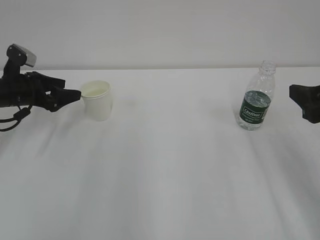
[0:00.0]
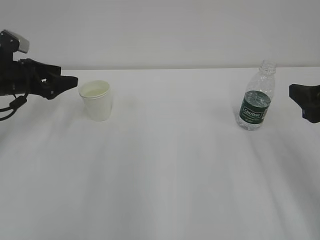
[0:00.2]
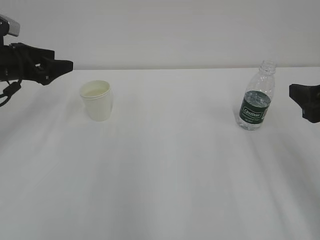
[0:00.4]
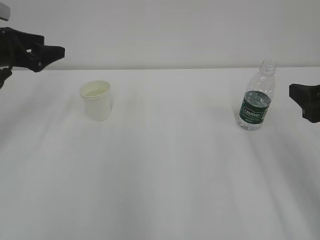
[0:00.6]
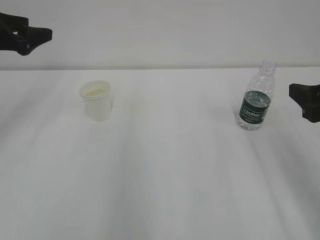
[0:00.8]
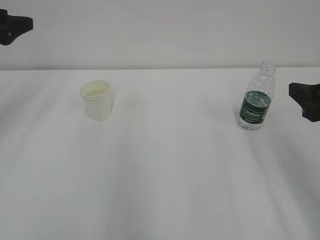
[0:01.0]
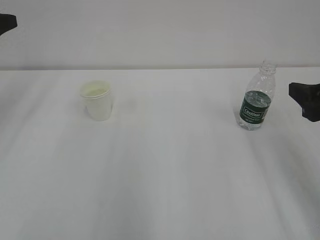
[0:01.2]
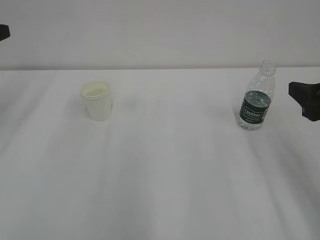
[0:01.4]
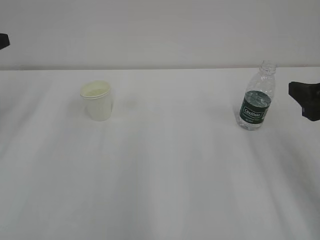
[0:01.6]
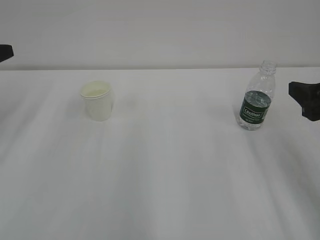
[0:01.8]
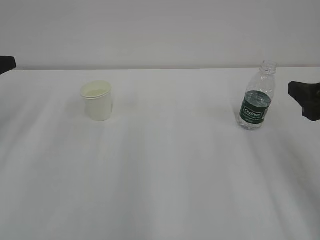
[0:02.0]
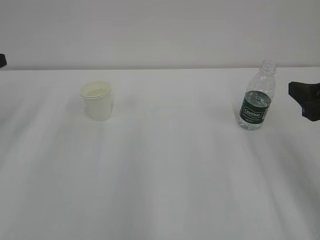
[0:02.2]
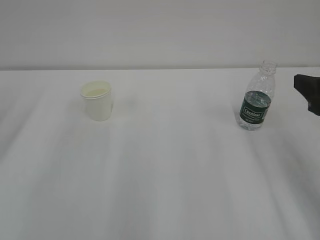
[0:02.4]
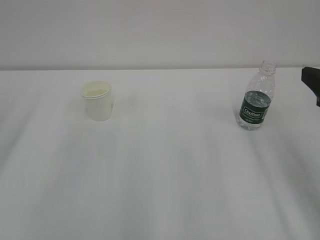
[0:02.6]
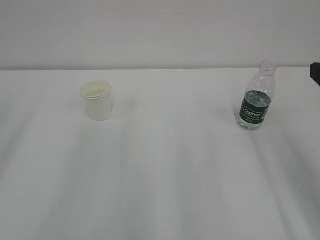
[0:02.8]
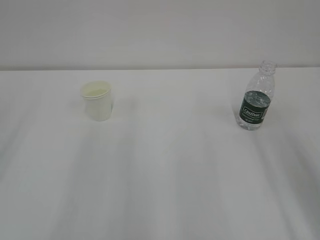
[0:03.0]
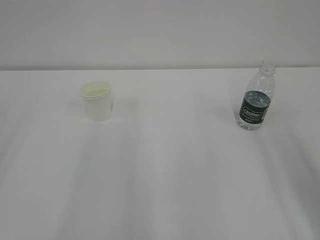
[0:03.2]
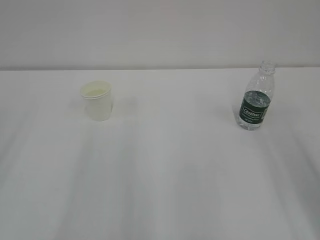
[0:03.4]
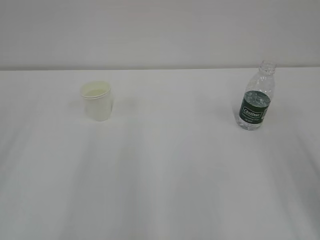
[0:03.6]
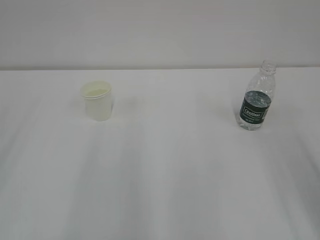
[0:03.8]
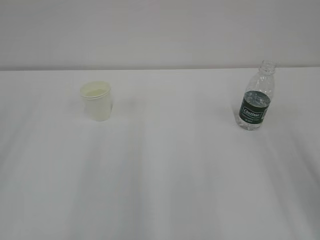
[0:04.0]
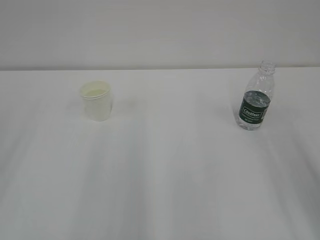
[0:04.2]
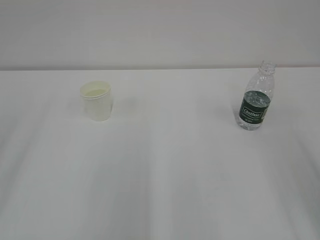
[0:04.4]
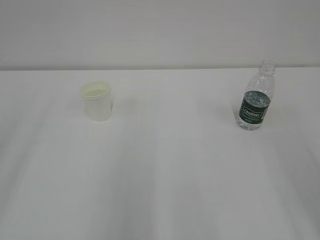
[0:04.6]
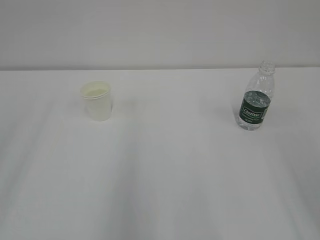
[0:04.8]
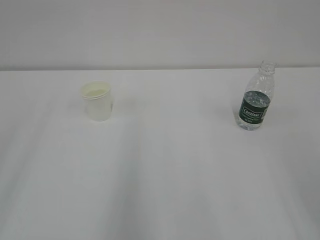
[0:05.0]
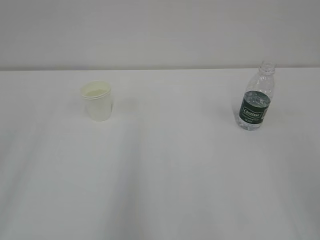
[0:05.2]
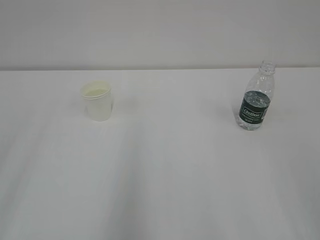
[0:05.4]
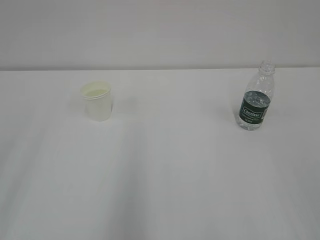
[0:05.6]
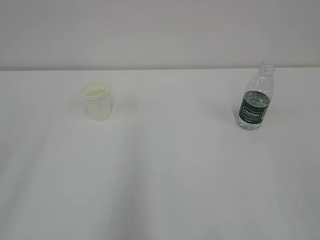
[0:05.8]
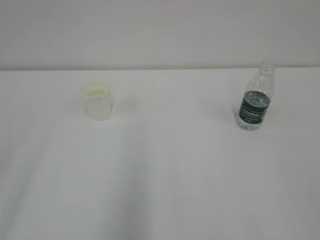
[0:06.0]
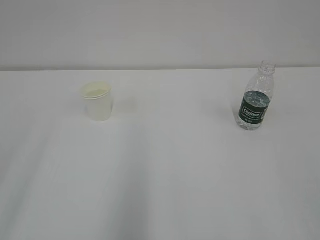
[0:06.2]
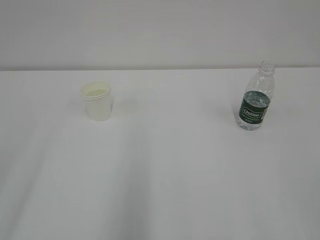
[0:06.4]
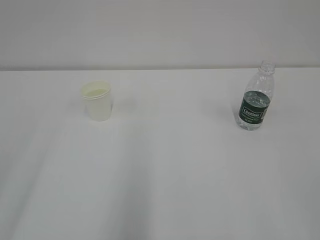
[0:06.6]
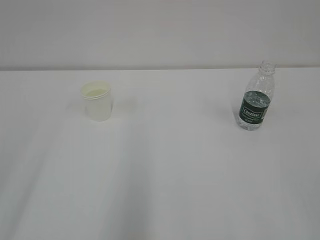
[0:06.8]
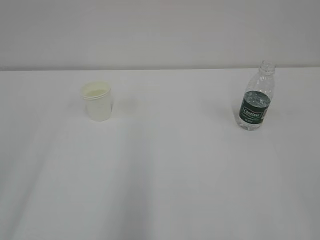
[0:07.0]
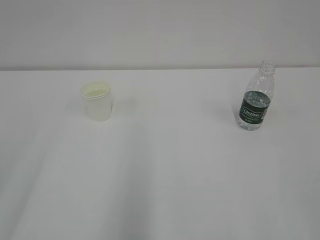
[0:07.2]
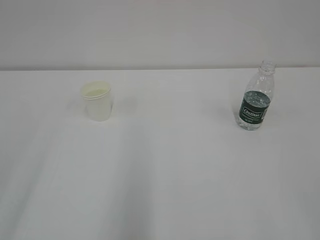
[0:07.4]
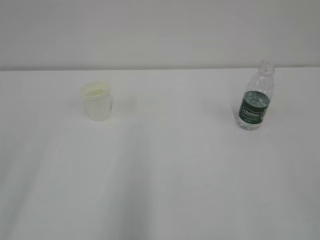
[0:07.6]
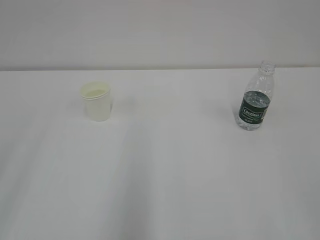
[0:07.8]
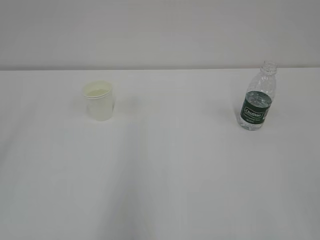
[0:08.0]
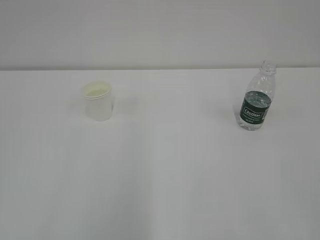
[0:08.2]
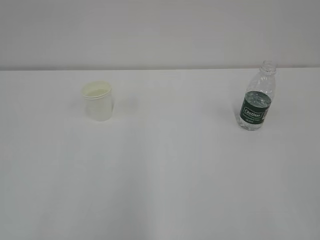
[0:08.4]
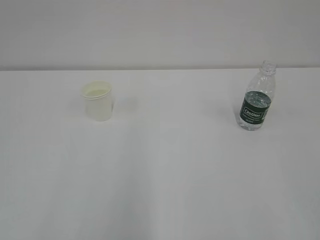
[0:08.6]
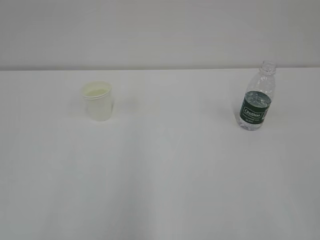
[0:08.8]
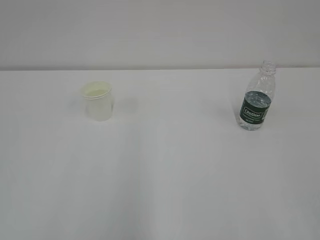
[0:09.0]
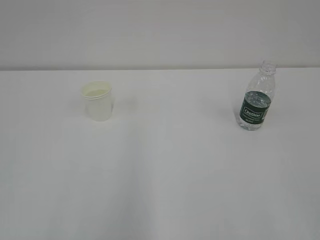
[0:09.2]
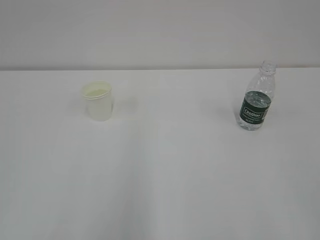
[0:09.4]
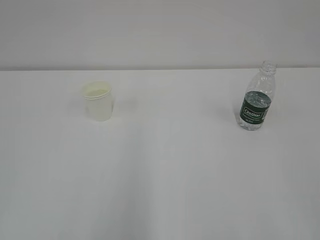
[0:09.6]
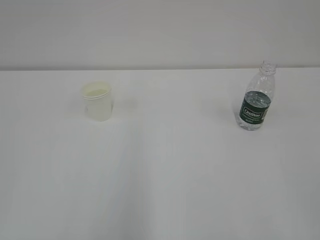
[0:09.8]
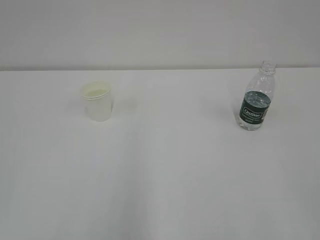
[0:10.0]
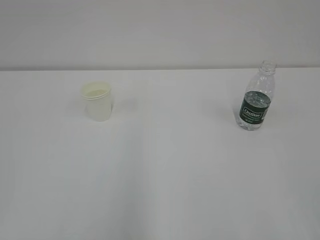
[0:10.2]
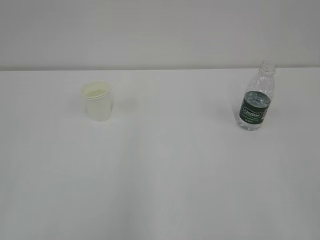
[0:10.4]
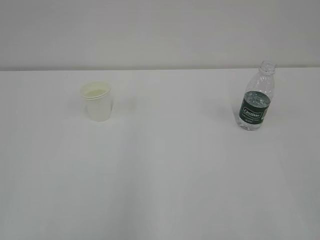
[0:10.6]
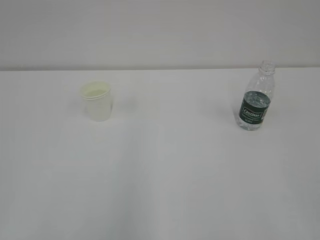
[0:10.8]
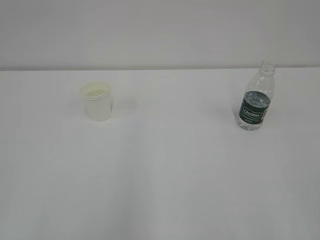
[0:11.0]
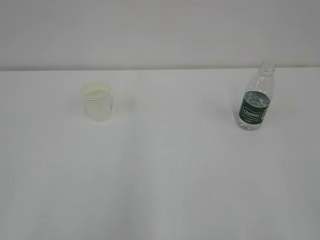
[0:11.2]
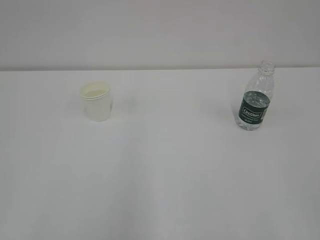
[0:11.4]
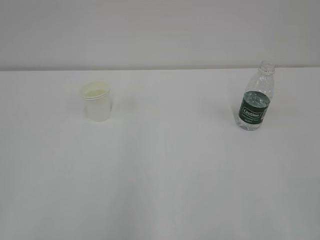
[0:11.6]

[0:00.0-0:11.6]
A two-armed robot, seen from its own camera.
0:00.0 to 0:01.4: The left gripper shifts approximately 15 cm upward and to the left.

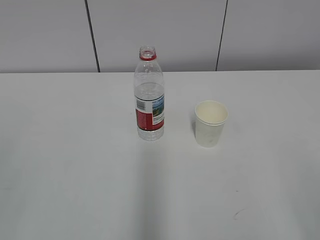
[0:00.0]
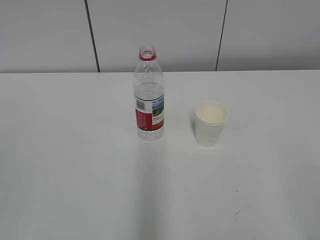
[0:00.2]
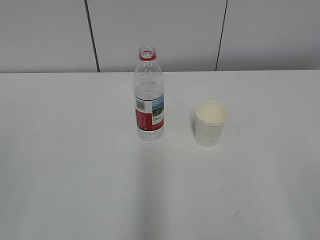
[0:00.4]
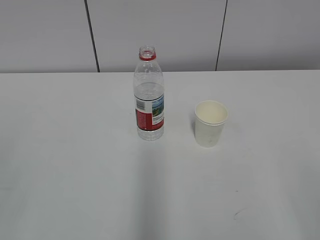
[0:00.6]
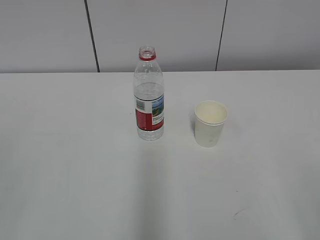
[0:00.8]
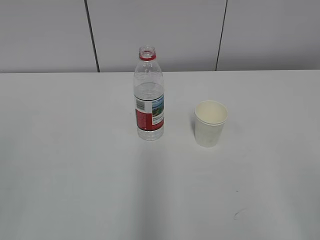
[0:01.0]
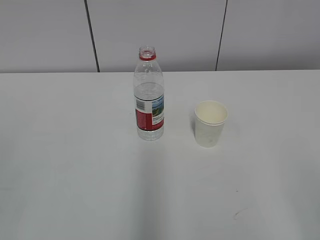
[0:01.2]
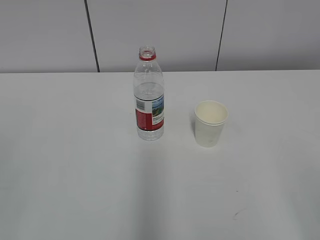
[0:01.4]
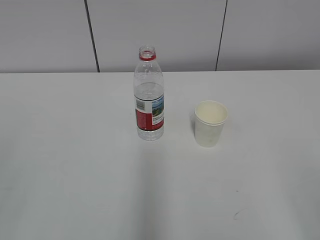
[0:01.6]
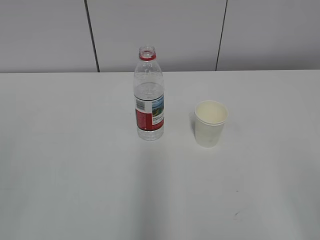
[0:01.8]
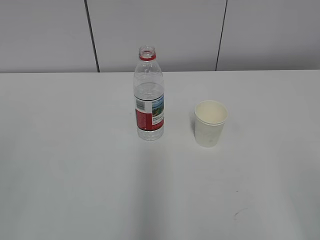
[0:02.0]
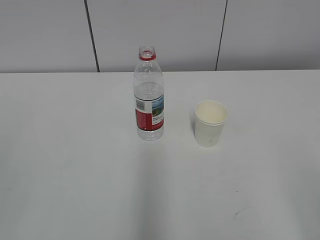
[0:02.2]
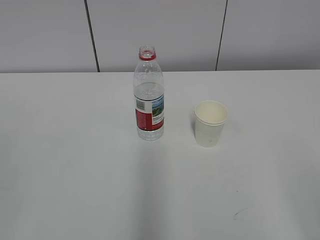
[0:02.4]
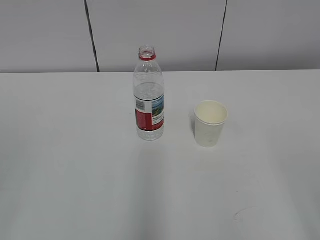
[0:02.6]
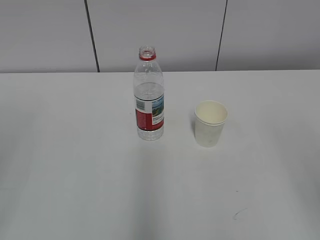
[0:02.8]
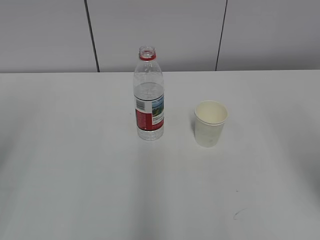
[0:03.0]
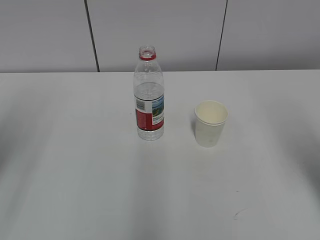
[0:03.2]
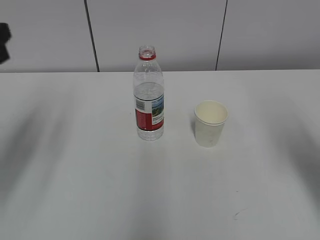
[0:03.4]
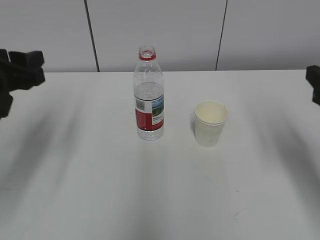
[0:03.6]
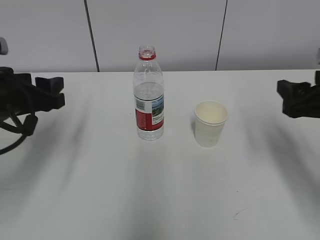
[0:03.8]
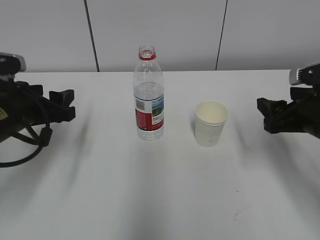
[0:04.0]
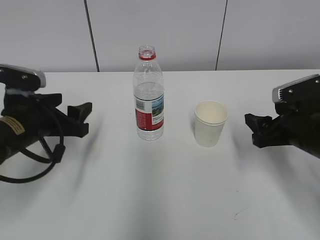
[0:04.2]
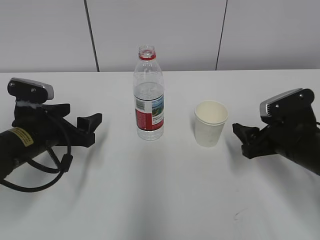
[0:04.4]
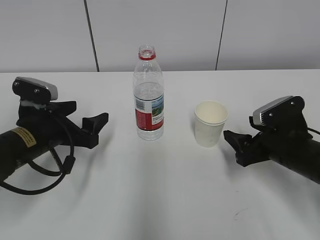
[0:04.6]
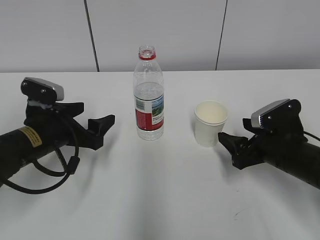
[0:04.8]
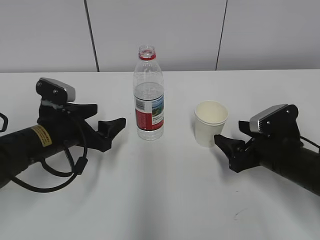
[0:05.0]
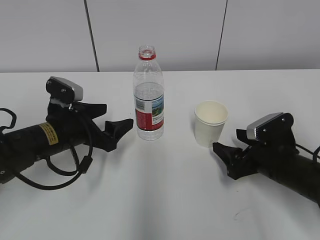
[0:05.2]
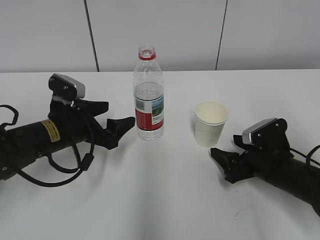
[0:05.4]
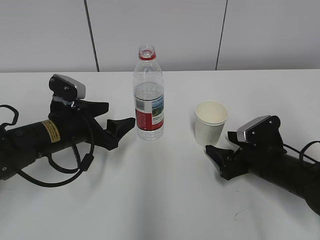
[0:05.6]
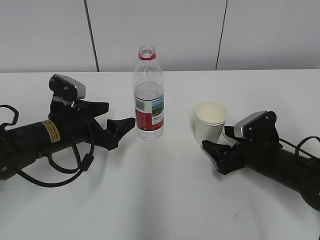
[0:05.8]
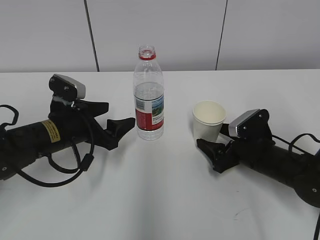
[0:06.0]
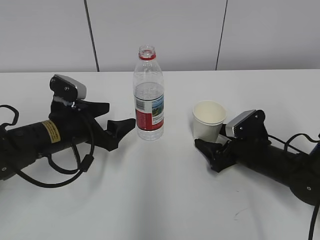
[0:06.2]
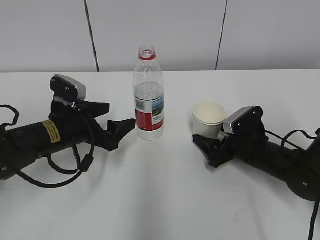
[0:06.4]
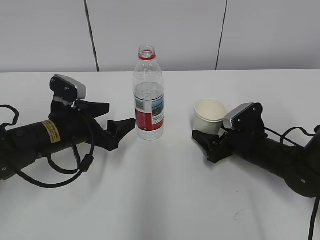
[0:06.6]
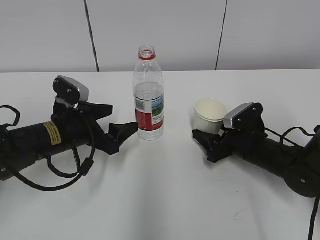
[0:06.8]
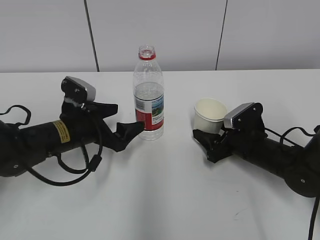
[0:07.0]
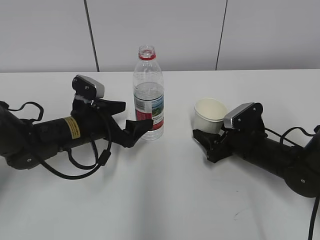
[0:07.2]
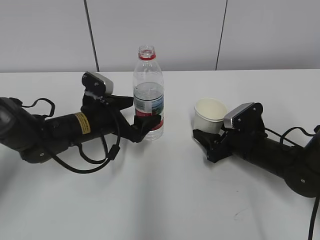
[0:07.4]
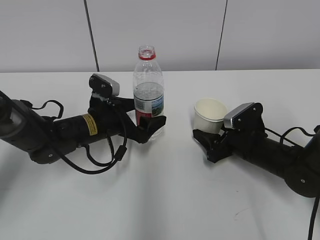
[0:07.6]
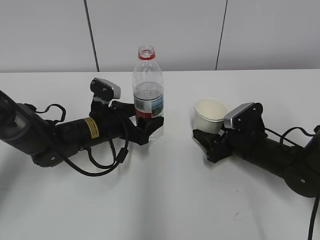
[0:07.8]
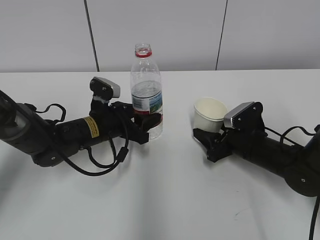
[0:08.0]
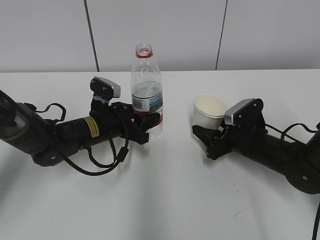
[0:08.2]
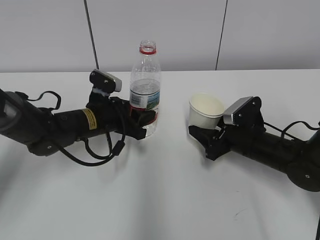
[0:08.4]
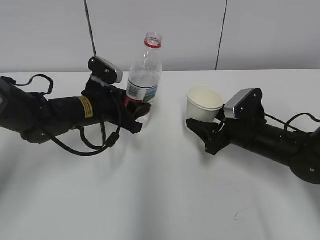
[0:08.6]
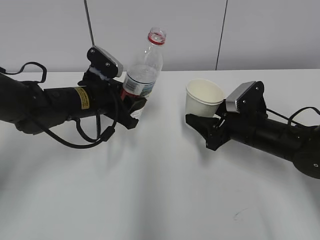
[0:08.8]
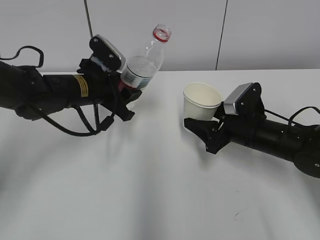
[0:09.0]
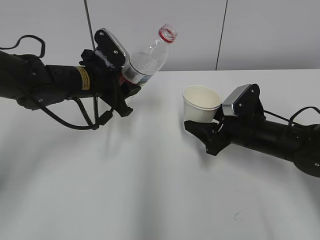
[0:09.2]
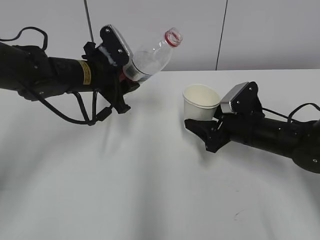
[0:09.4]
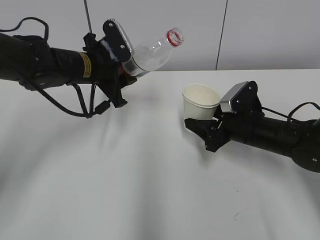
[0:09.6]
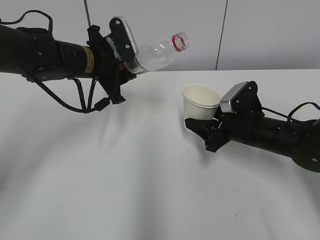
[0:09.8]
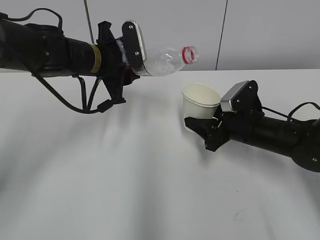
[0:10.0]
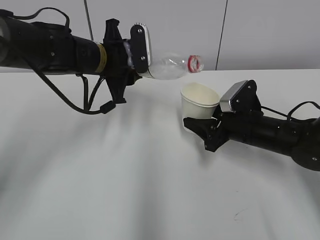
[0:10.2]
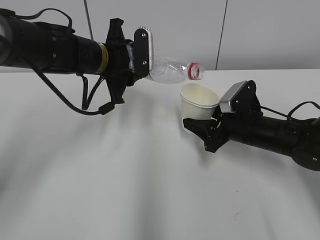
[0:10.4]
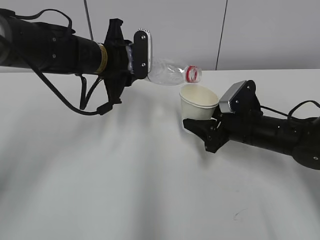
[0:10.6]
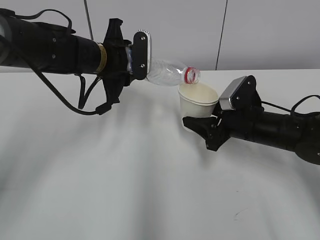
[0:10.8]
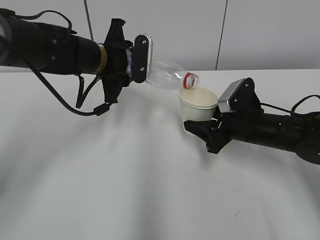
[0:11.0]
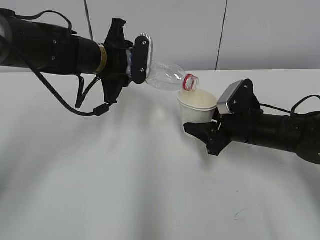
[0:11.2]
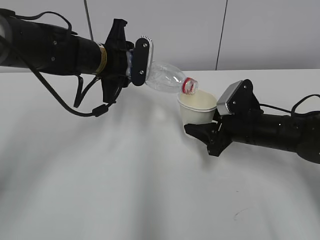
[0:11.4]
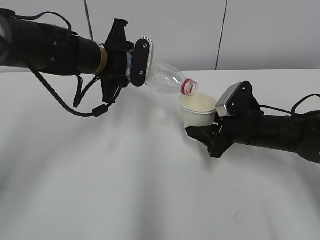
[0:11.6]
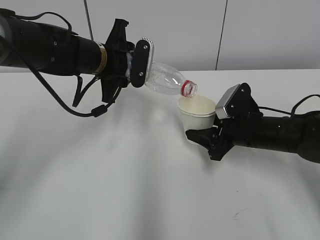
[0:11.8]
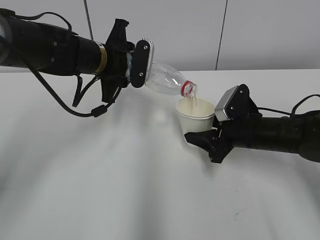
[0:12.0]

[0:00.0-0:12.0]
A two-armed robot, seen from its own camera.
Step, 0:00.0 to 0:05.4: Grab the paper cup with the right hand.
Step, 0:07.0 to 0:09.8: Lift the paper cup with the right hand.
0:03.0 to 0:04.4: The left gripper shifts approximately 35 cm downward, forward and to the right, while the right gripper goes roughly 30 cm downward and forward.
0:04.4 to 0:06.0: The right gripper is displaced downward by some 5 cm.
0:06.0 to 0:07.6: The left gripper shifts by some 5 cm. Meanwhile the right gripper closes its fingers.
0:07.6 to 0:09.0: The grippers both shift upward by roughly 5 cm. The left gripper closes its fingers.
0:09.0 to 0:10.4: The left gripper shifts some 5 cm upward.
0:10.4 to 0:12.0: There are only small adjustments of the grippers.
